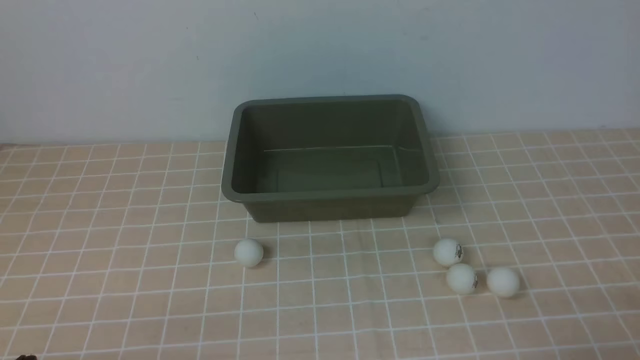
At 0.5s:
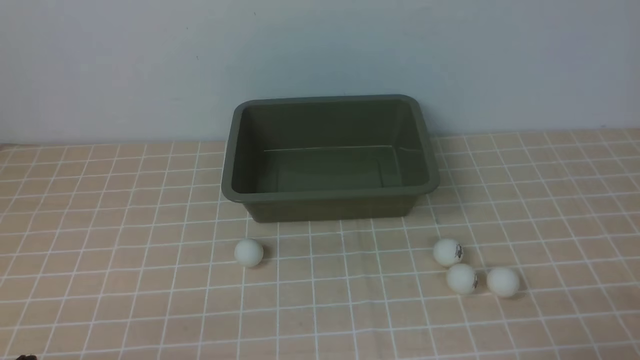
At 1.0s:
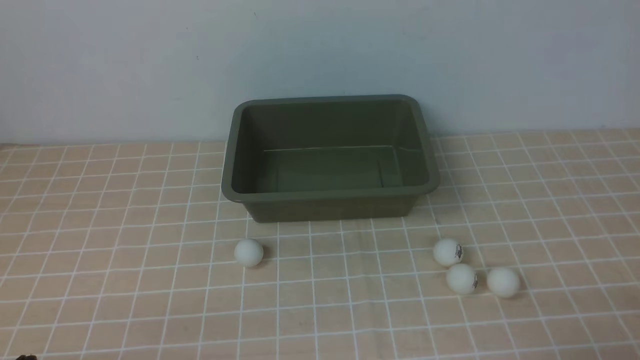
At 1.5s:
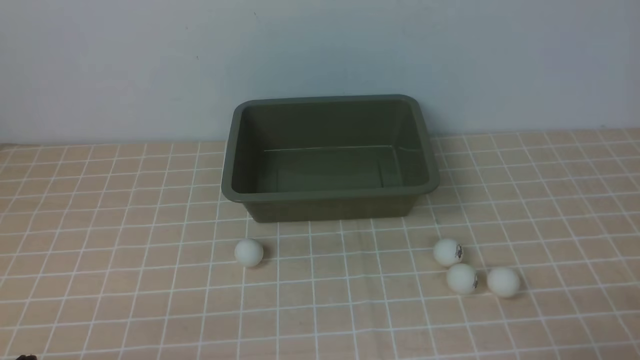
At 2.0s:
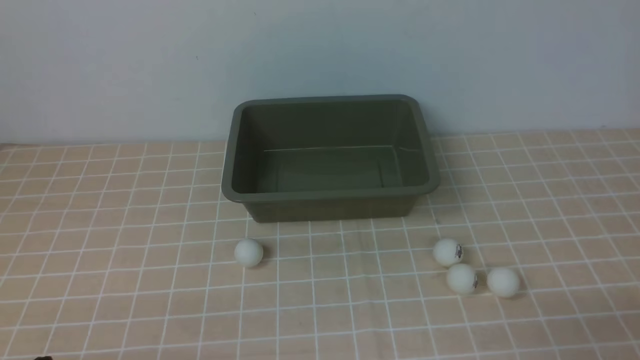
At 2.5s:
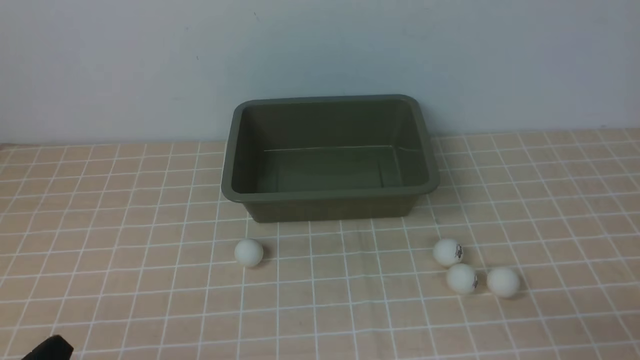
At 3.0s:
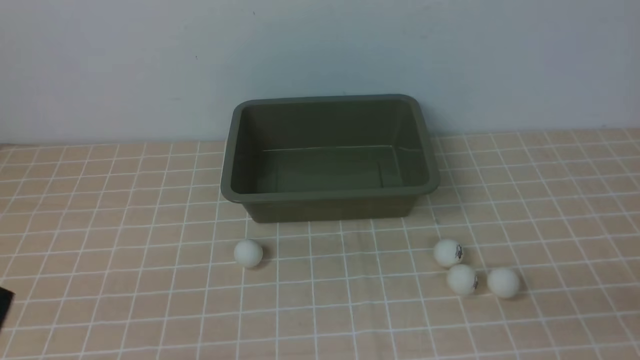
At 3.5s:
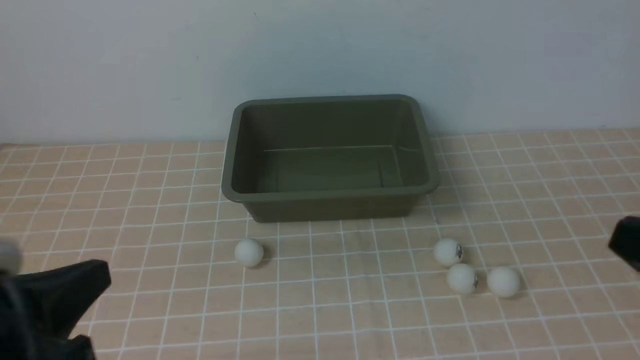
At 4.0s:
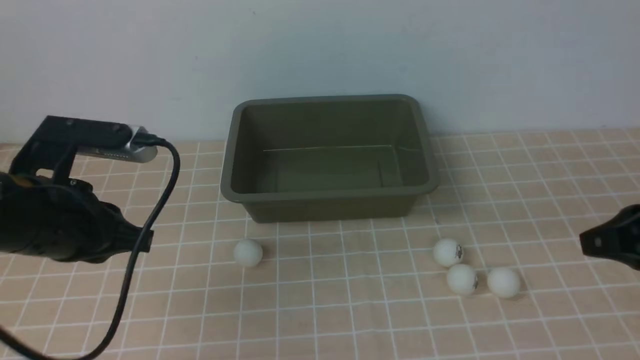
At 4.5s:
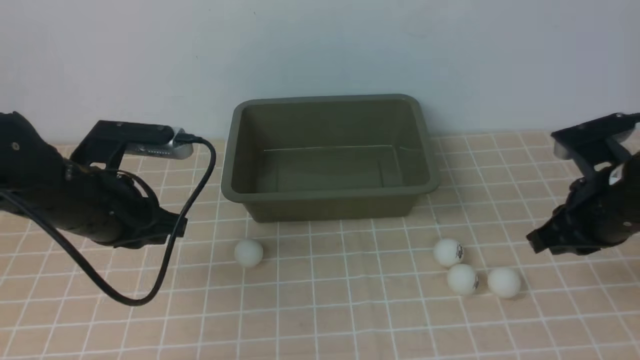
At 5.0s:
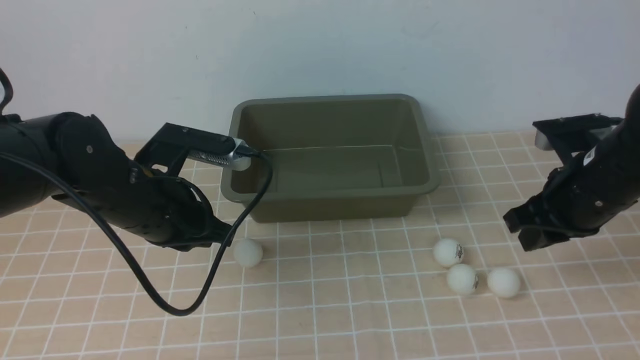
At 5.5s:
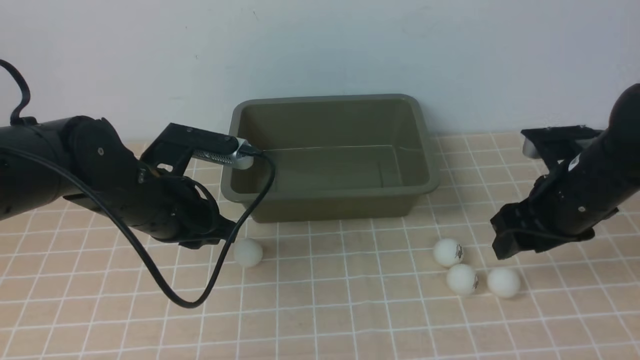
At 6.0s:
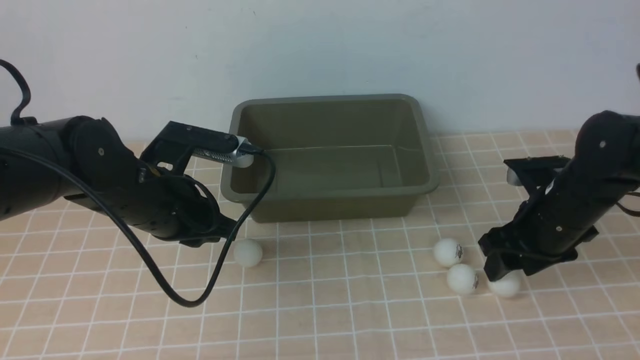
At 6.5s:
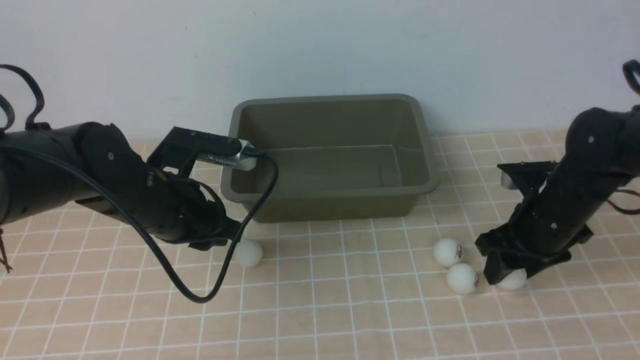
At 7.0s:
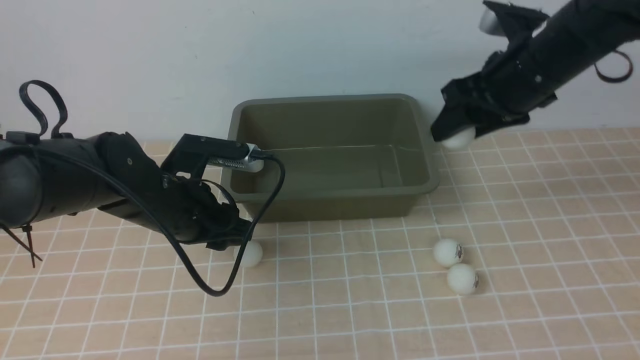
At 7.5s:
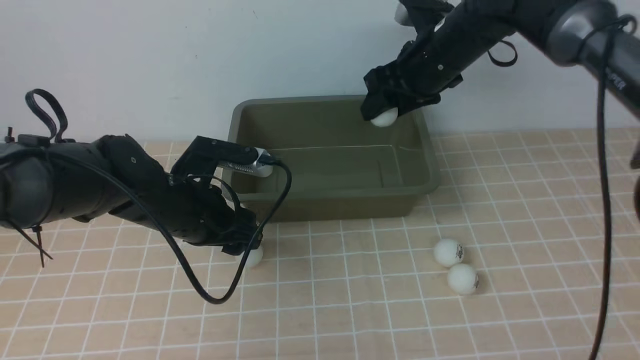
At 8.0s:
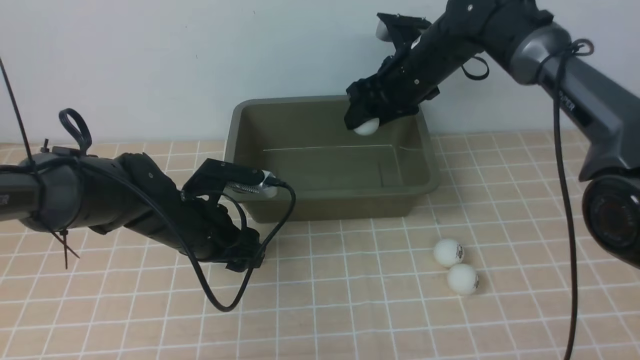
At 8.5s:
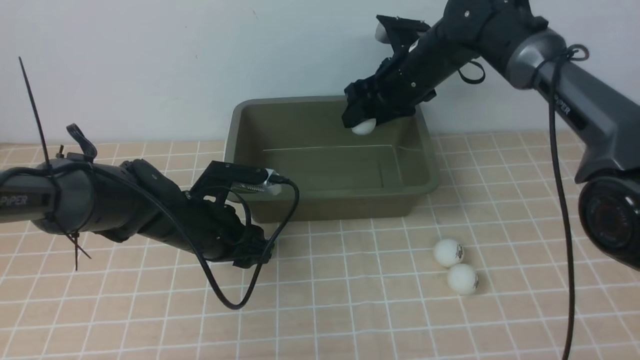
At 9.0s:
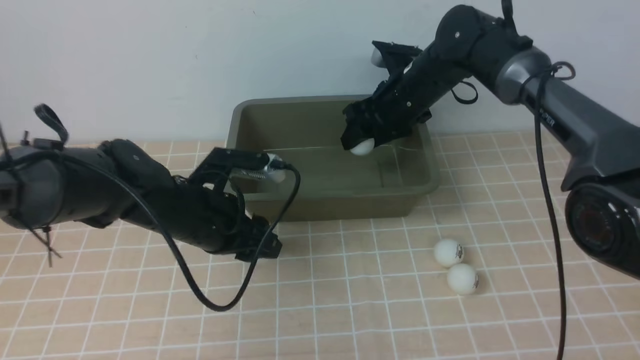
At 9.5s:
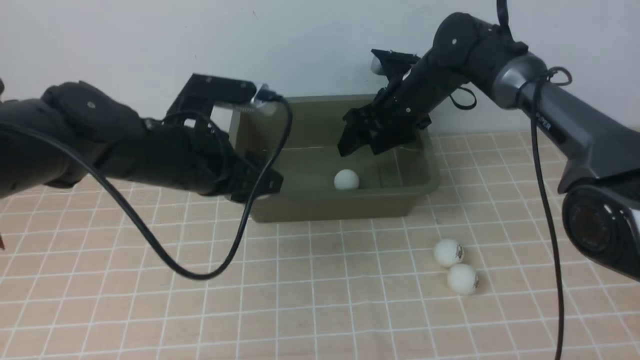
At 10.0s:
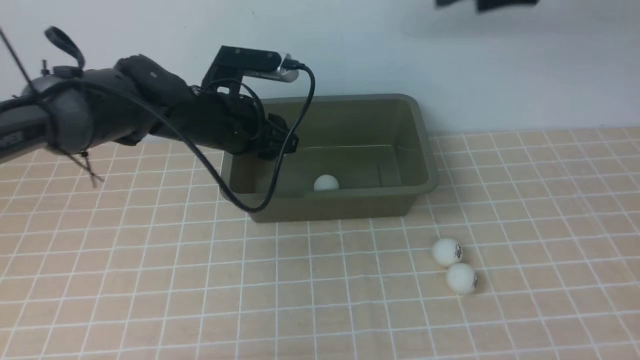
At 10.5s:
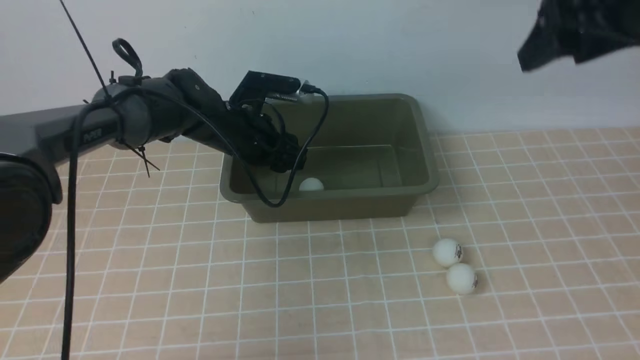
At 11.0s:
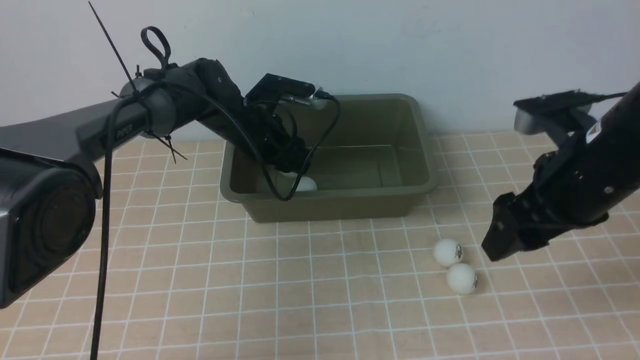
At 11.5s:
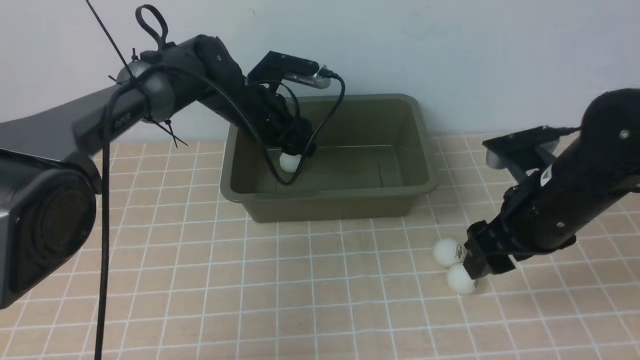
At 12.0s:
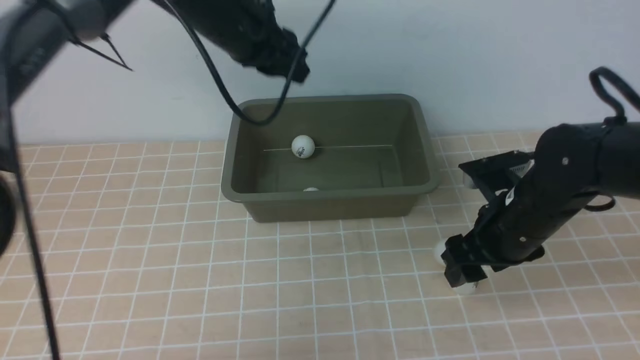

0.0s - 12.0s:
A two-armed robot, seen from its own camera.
Step, 0.0s - 6.5s: use the right arm to clamp the table tennis ball closest to it.
Step, 7.0s - 9.0s: use the right arm to put the table tennis ball into the box.
Step, 9.5s - 11.5s: use the left arm to put the table tennis ball into the box.
2.0s - 4.0s: Both grippers travel together forward and upward, some 20 cm.
4.0s - 6.0s: The right gripper travels forward and downward by about 15 cm, and opens up. Meanwhile the left gripper goes some 10 cm forward and to the right.
6.0s - 8.0s: The left gripper moves downward, approximately 5 cm, and opens, while the right gripper shifts roughly 20 cm forward, to the left and upward.
8.0s - 10.0s: The left gripper is displaced upward and forward by approximately 10 cm, while the right gripper moves upward and to the right, some 20 cm.
10.0s - 12.0s: The left gripper moves upward, roughly 10 cm, and closes its fingers; the right gripper is displaced downward and backward by some 25 cm.

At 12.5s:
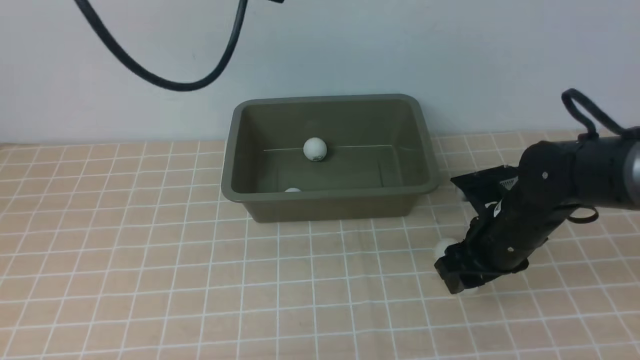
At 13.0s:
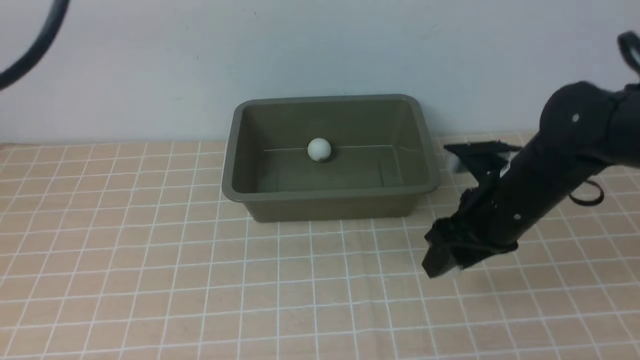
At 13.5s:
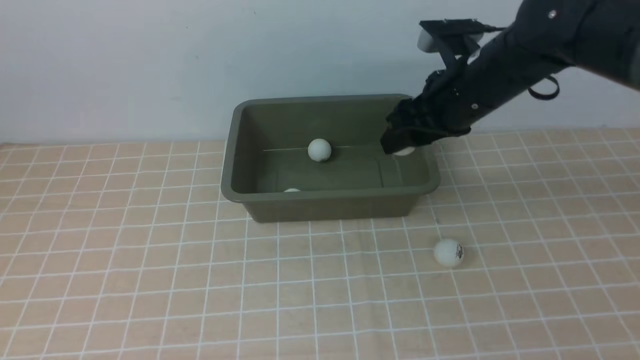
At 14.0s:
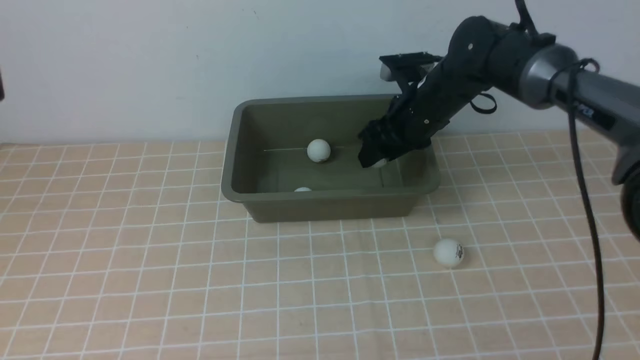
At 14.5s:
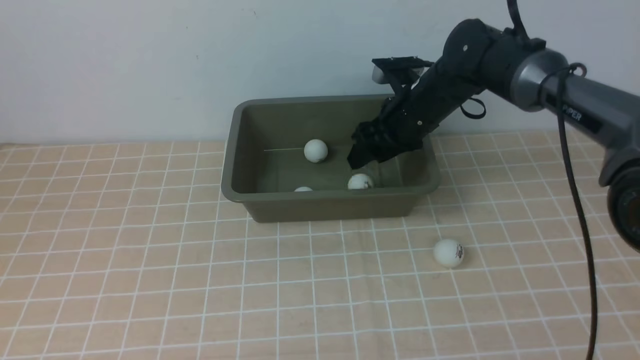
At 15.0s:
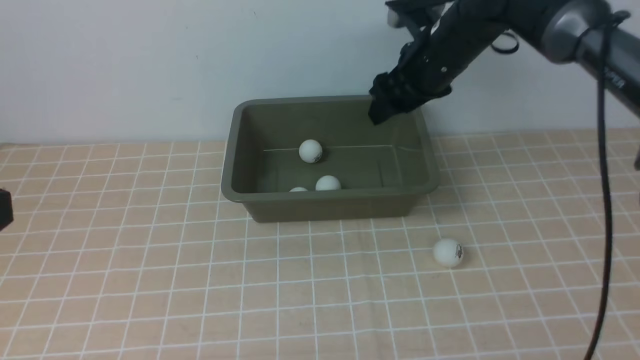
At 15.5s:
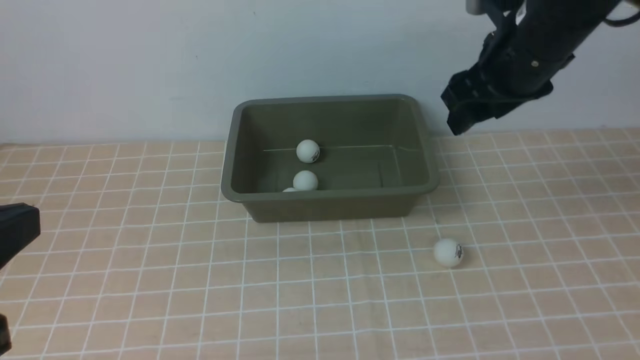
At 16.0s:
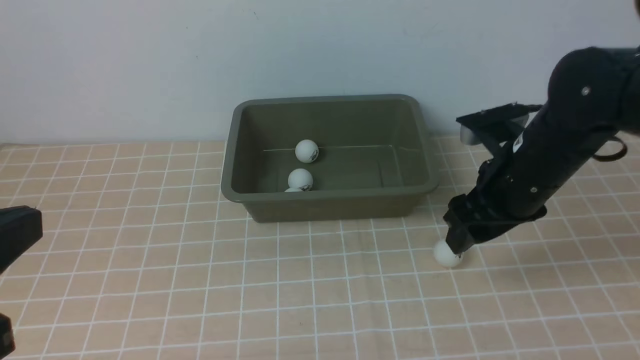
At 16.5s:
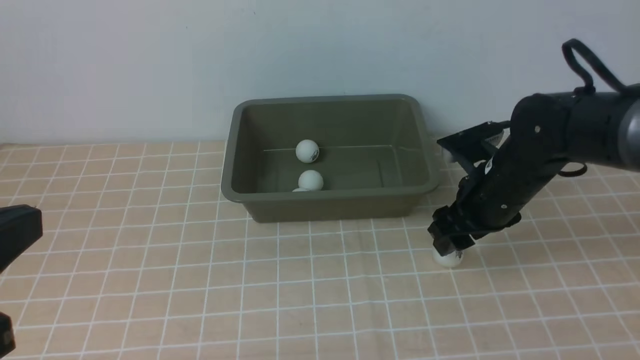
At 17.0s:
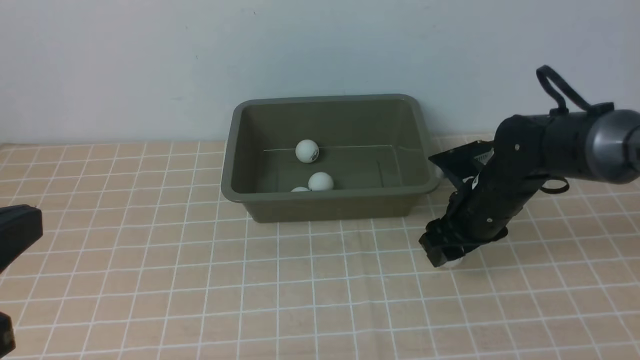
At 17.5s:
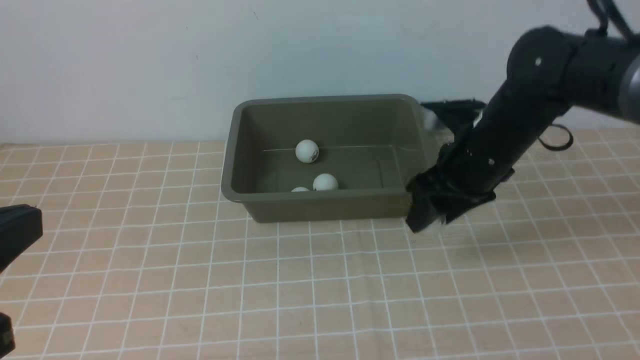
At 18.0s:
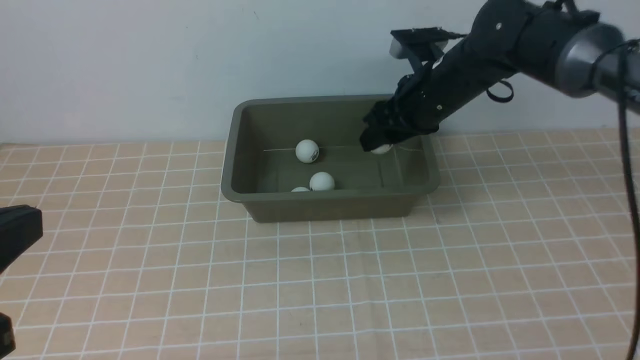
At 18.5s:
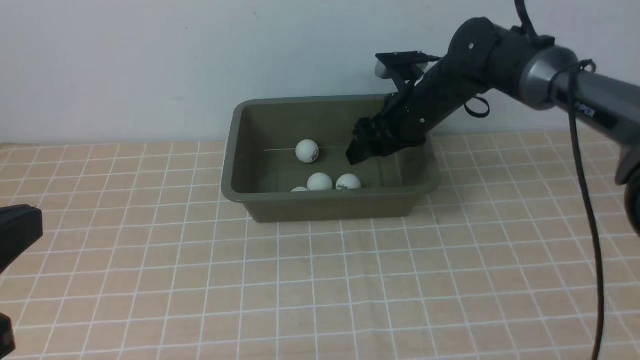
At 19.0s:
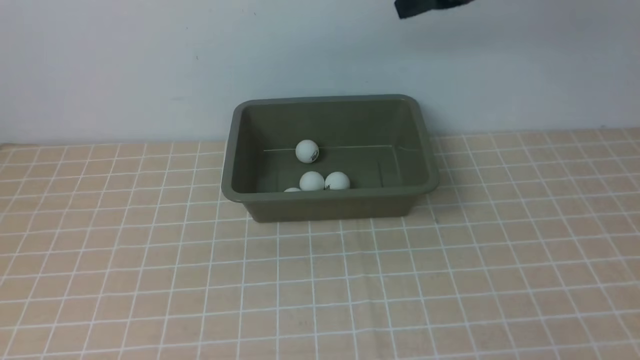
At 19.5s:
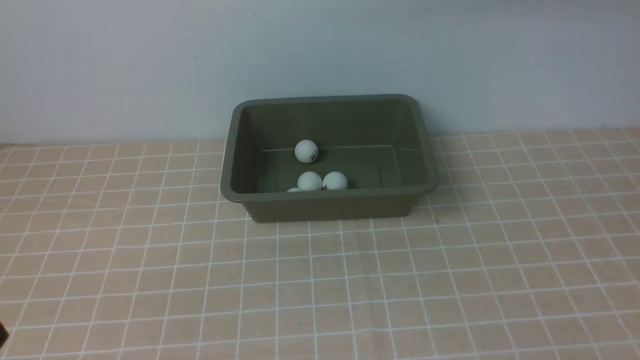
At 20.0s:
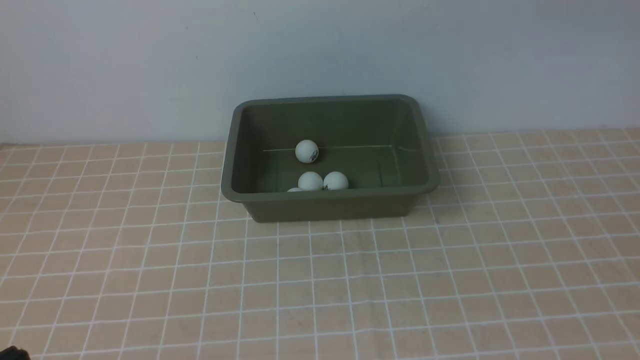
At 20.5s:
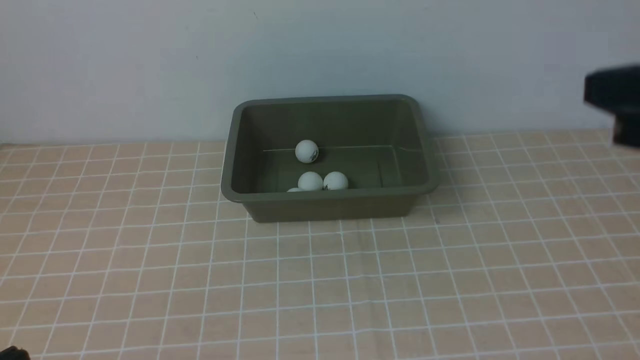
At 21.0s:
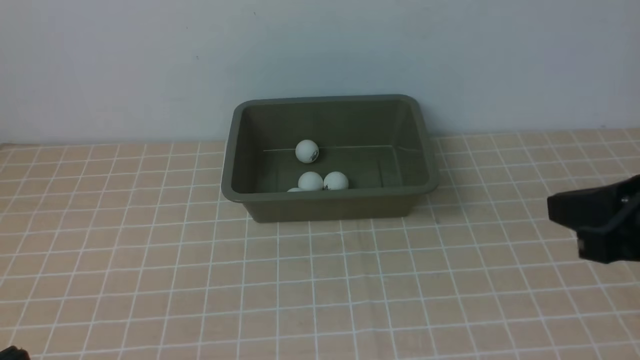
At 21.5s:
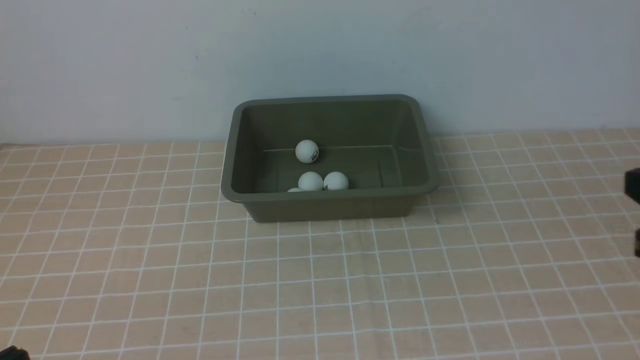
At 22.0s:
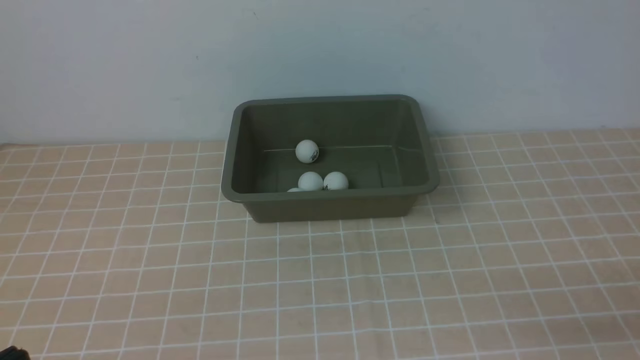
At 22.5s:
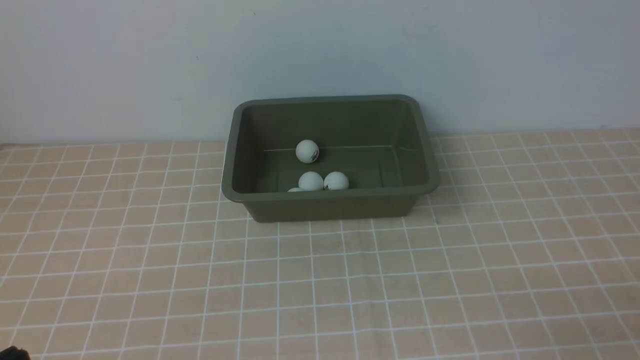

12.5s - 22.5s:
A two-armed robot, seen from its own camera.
Step, 13.5s - 14.0s: use the right arm to put the table tennis ball into the box.
Step, 14.5s - 17.0s: use the right arm to clamp the table tennis ball closest to it.
Step, 17.5s - 18.0s: use the right arm to put the table tennis ball into the box.
12.5s - 14.5s: The right gripper goes about 15 cm forward and to the left. Meanwhile the left gripper shifts about 30 cm backward.
14.5s - 16.5s: The right gripper travels backward and to the right by about 15 cm.
16.5s - 18.5s: The right gripper heads forward, to the left and upward, covering roughly 15 cm.
18.5s - 20.5s: The left gripper shifts approximately 10 cm downward and backward. The right gripper travels backward, upward and to the right by about 35 cm, and closes.
20.5s - 22.5s: The right gripper moves downward and backward, roughly 25 cm.
